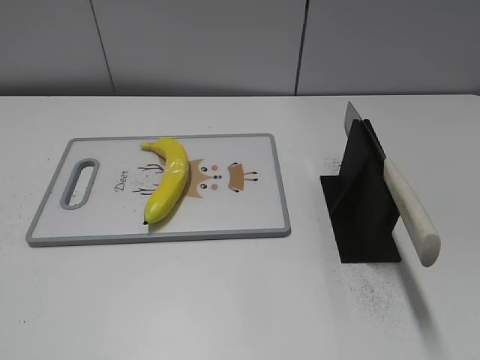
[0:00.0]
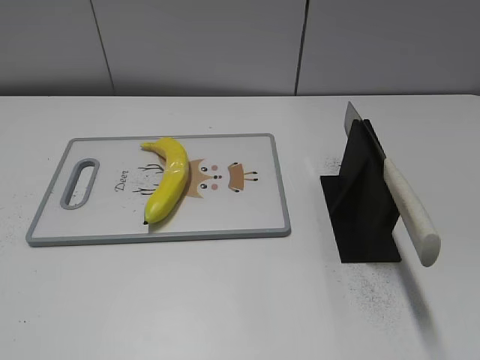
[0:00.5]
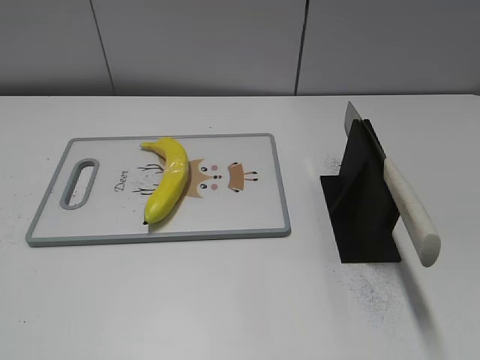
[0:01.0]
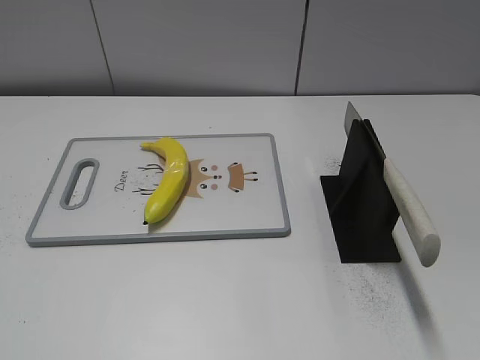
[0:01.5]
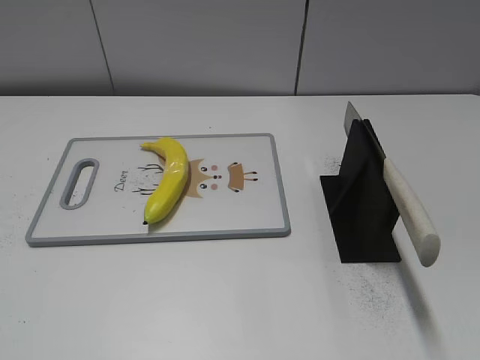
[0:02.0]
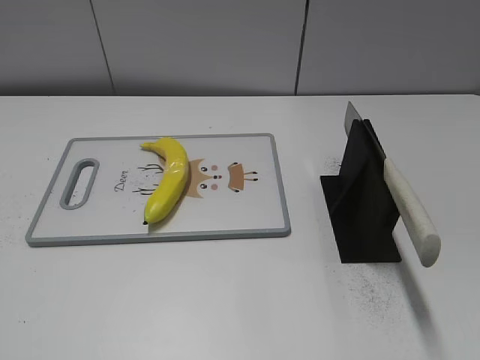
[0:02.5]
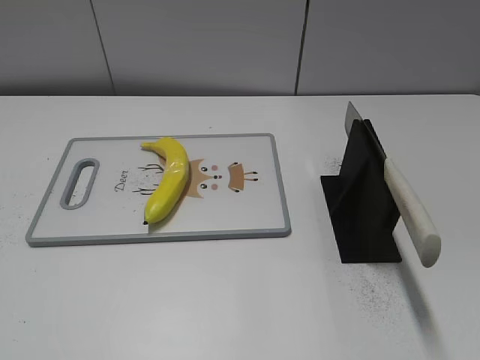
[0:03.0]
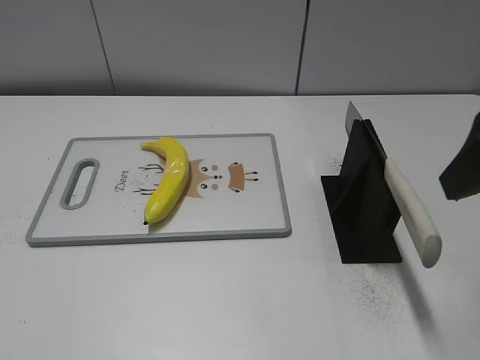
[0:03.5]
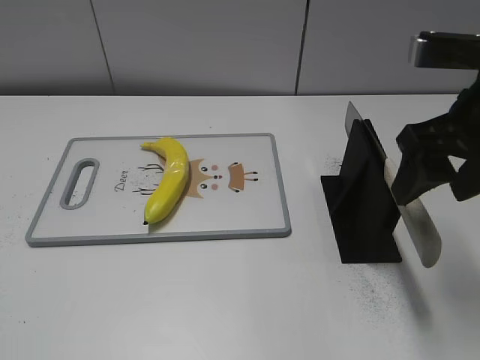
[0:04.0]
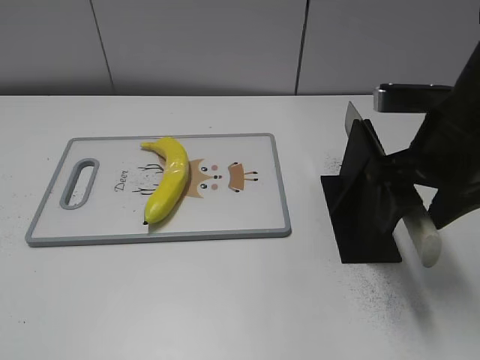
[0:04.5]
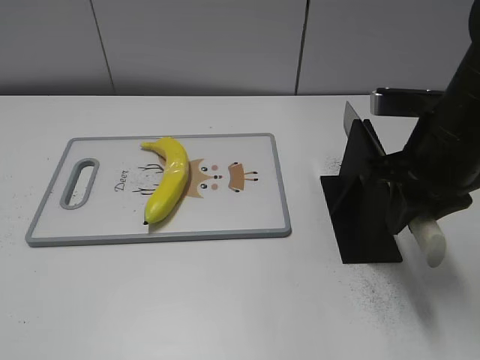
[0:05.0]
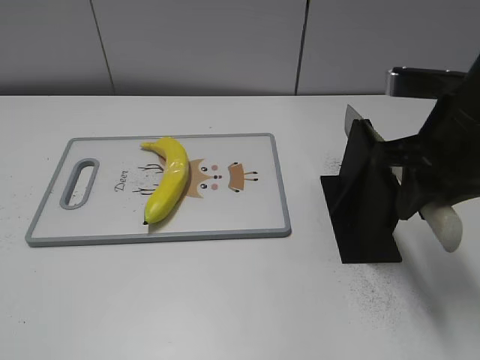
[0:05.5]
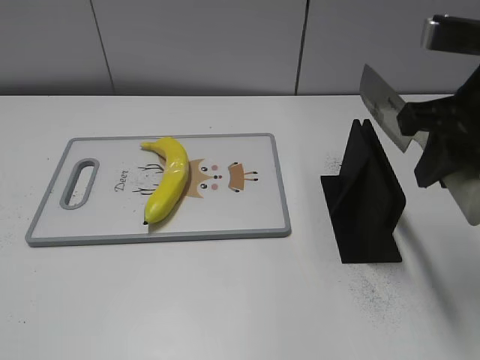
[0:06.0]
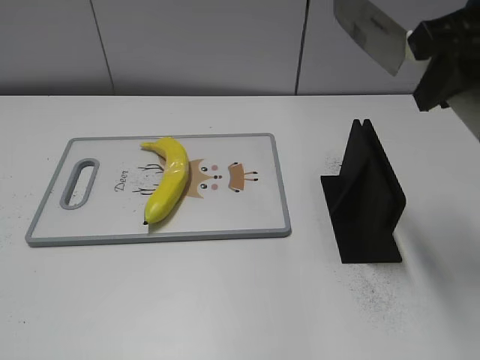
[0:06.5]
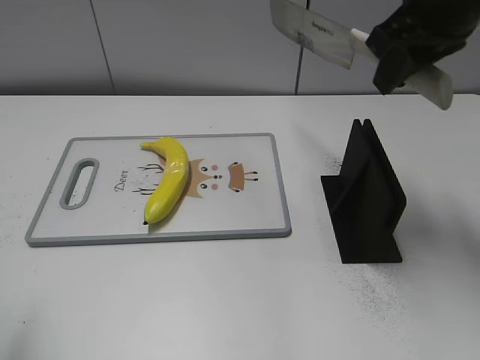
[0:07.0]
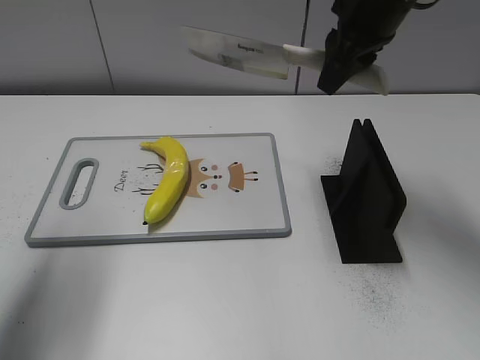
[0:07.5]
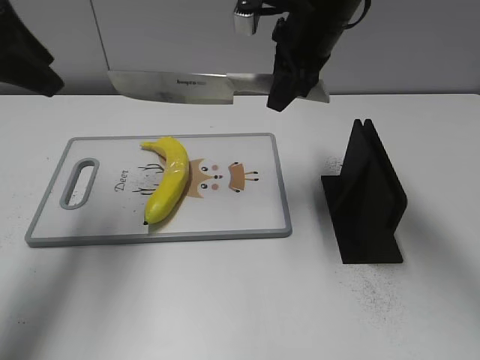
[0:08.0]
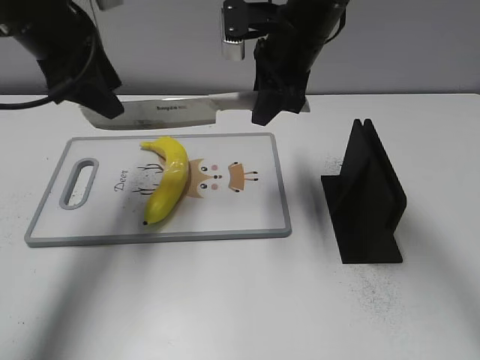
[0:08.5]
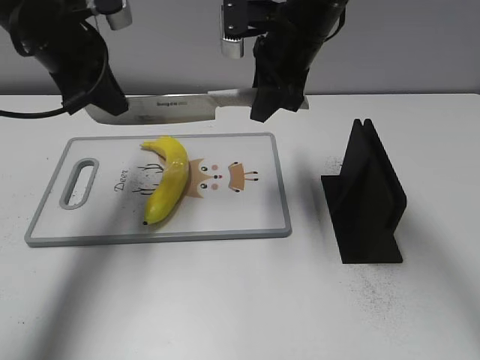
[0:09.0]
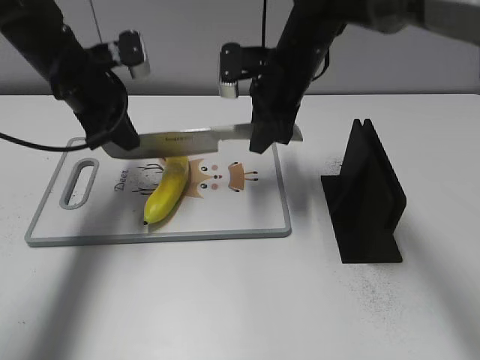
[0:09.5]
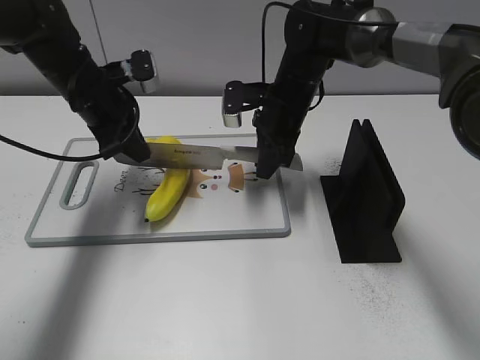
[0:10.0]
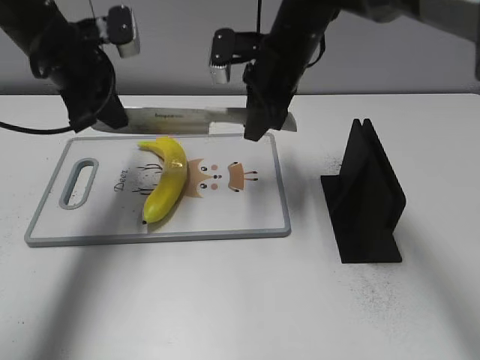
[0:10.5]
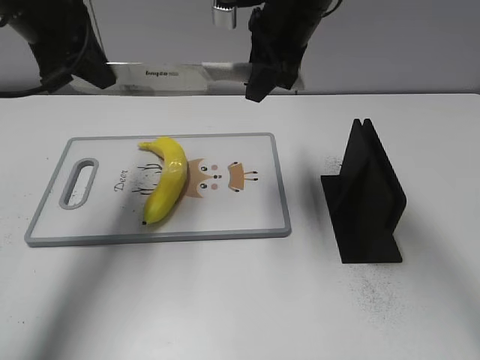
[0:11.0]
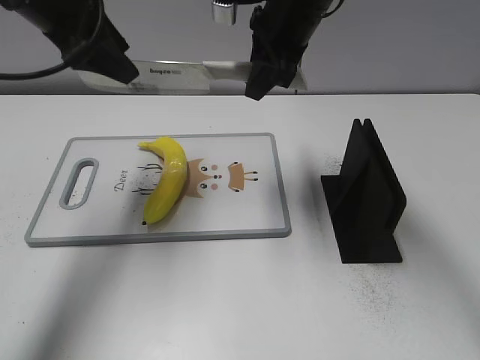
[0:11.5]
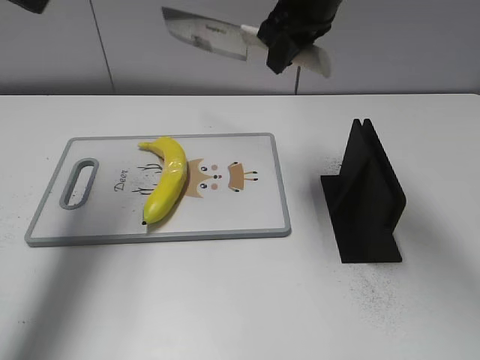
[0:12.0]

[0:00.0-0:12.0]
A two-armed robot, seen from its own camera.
Task of the whole recording: cut plastic banana.
Step, 0:00.0 to 0:06.0: Grab the knife handle with your right hand.
Step, 0:06.5 to 0:11.0: Lift the knife with your right hand.
0:02.0 to 0:04.0: The right gripper is displaced forward by some 25 cm.
0:04.0 to 0:06.0: The right gripper closes its fingers.
0:06.0 to 0:08.0: The left gripper moves forward, about 35 cm. The right gripper goes some 20 cm forward and to the left.
0:08.0 to 0:10.0: The left gripper heads downward and forward, covering about 20 cm, and closes up; the right gripper goes some 15 cm downward.
0:10.0 to 0:12.0: Both grippers move upward, about 20 cm. The left gripper opens its fingers.

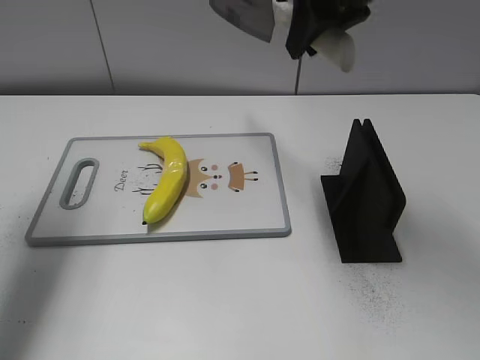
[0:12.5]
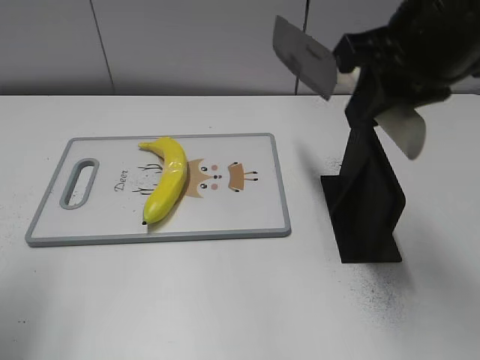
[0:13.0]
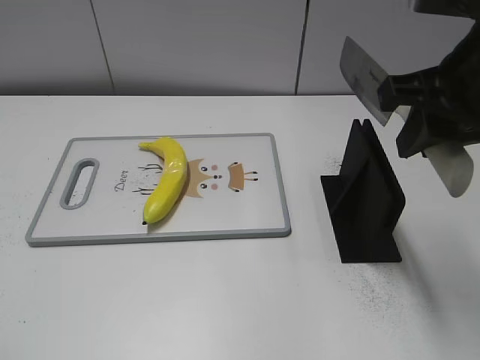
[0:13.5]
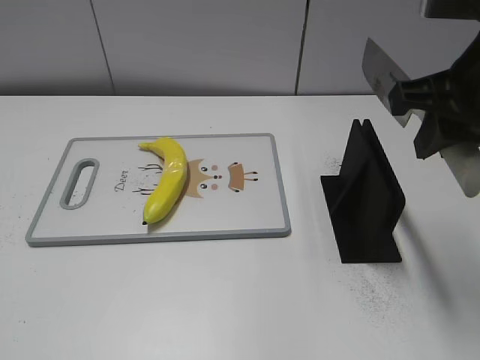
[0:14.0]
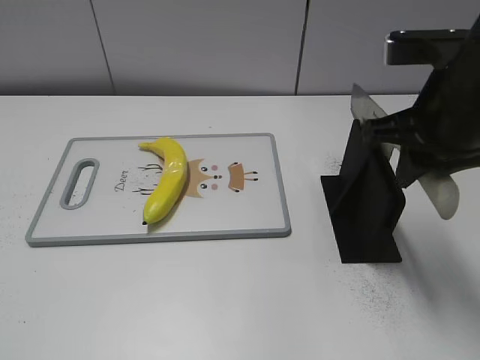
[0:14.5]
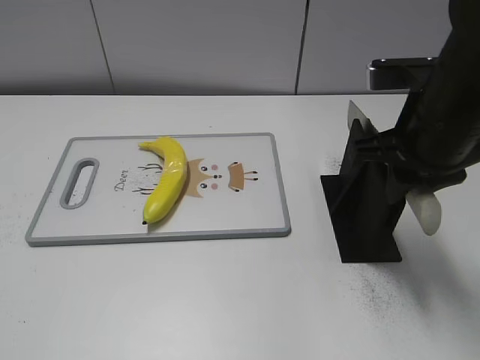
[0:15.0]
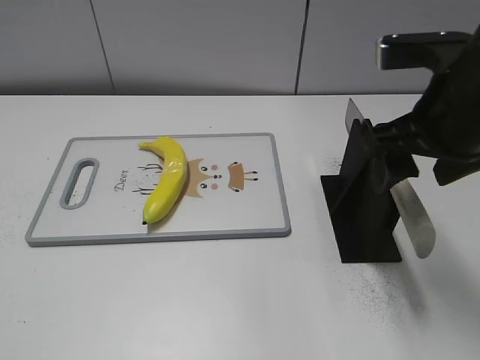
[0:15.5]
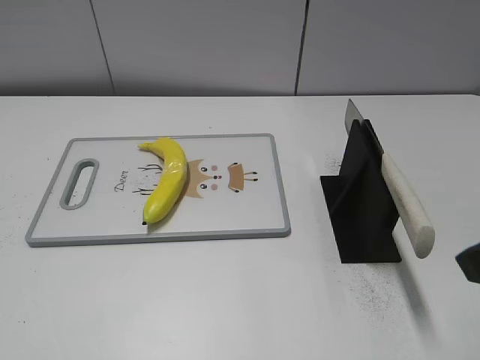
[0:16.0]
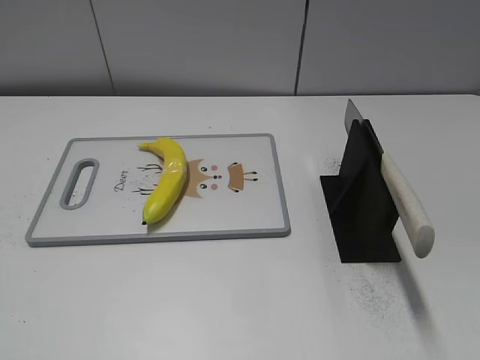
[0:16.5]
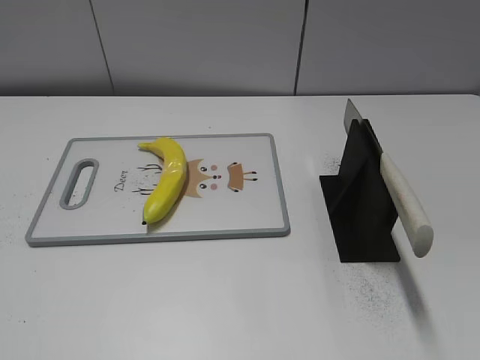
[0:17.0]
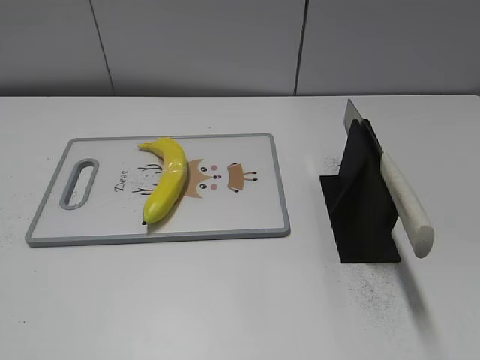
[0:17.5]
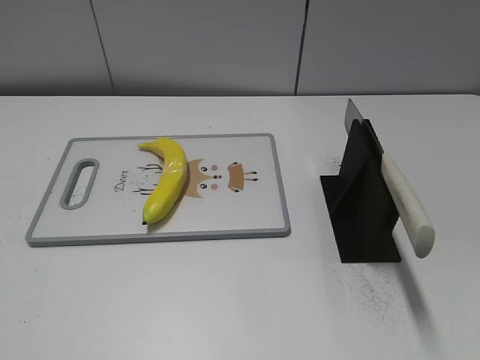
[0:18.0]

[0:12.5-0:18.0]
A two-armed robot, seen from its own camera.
Task of the whole recording: cut plastic banana.
Step, 0:12.5 to 0:13.5: Secure the blade with your left hand.
Step, 0:14.0 to 0:18.0: Place the knife on the storage rack with your right hand.
0:12.5 to 0:14.5: The right gripper moves backward, downward and to the right, roughly 15 cm. The left gripper travels backward by some 30 cm.
0:14.5 to 0:16.0: The right gripper travels backward by some 10 cm, and opens up.

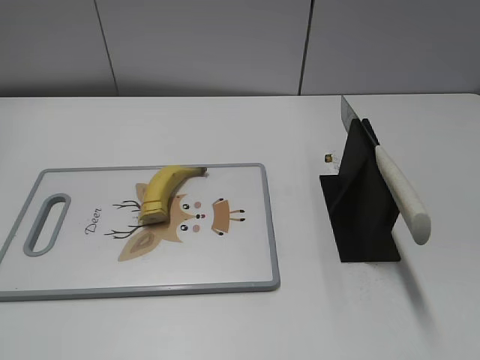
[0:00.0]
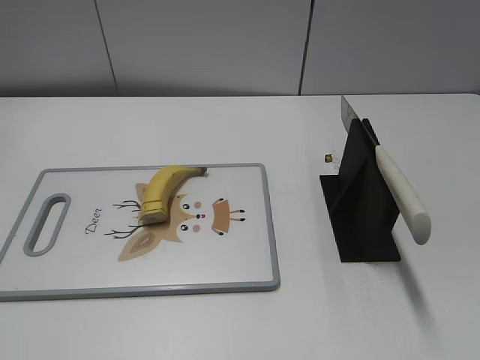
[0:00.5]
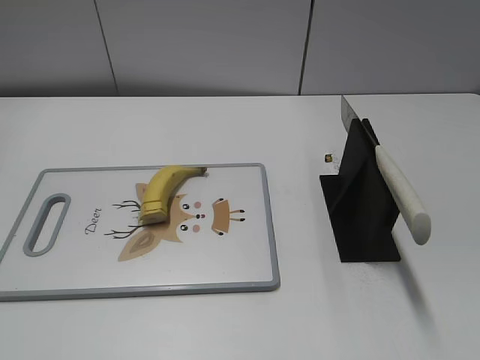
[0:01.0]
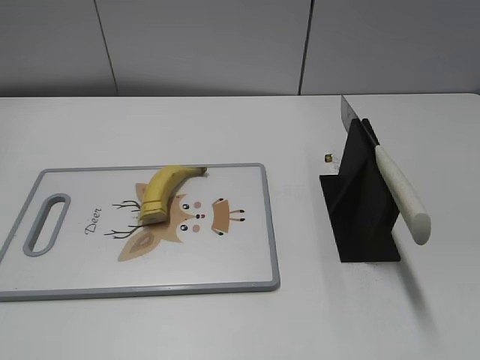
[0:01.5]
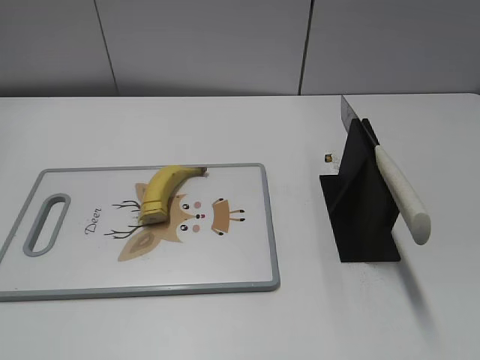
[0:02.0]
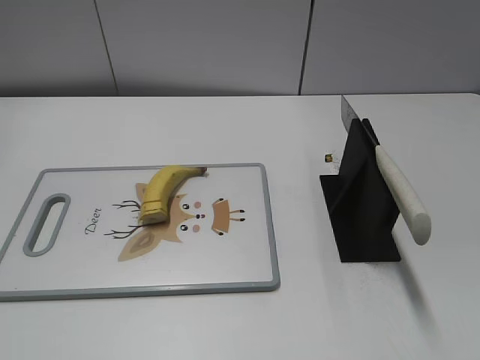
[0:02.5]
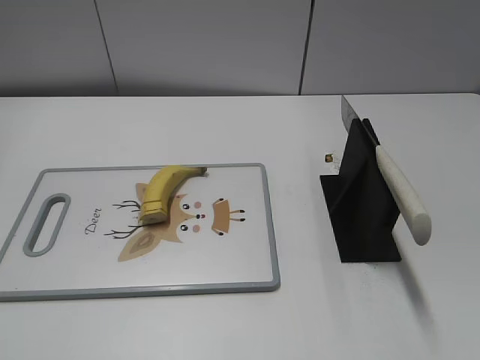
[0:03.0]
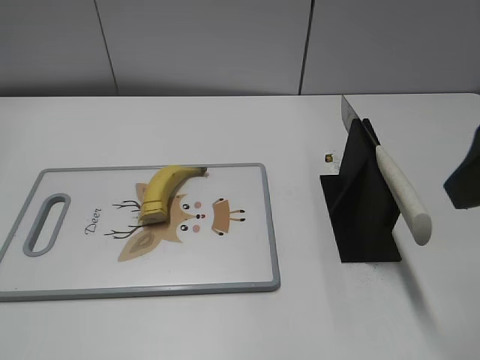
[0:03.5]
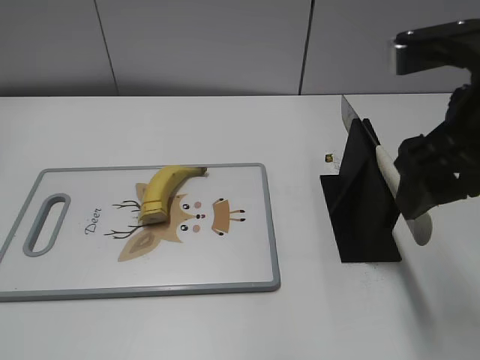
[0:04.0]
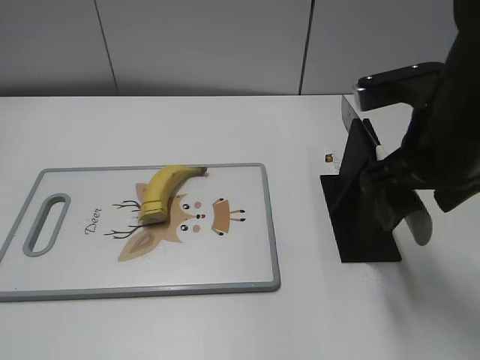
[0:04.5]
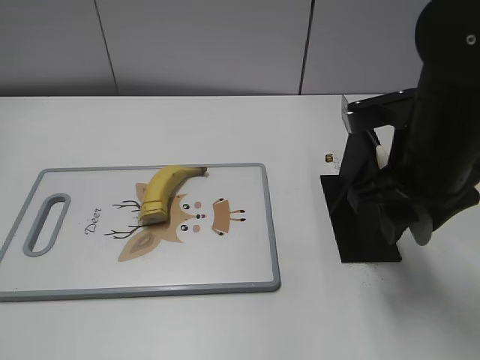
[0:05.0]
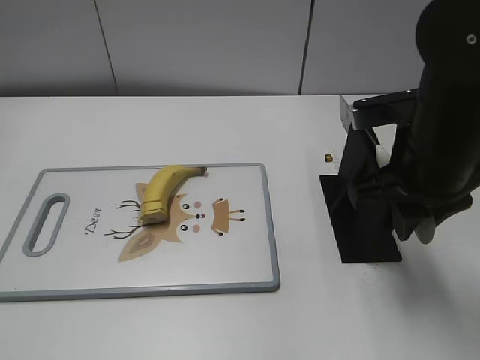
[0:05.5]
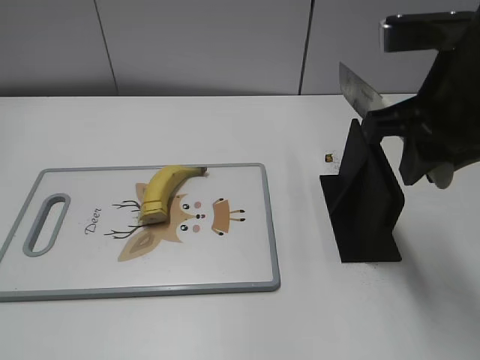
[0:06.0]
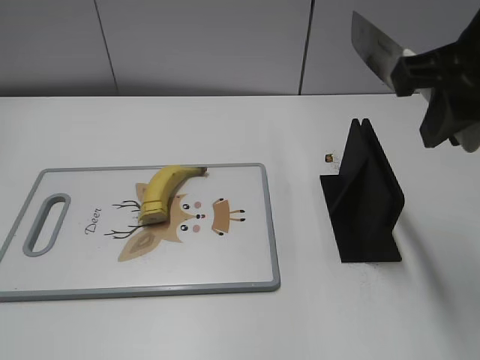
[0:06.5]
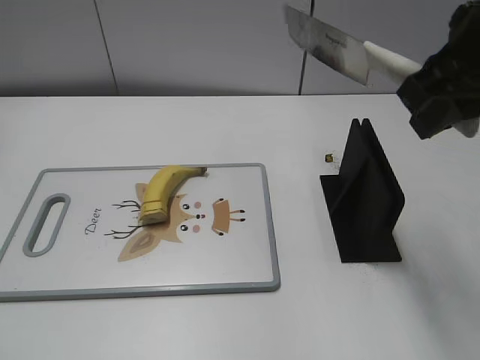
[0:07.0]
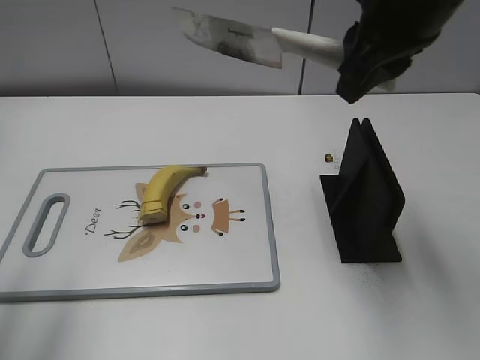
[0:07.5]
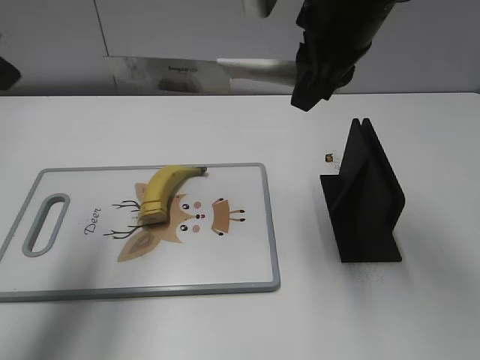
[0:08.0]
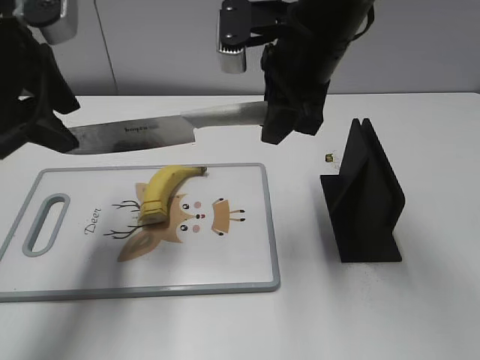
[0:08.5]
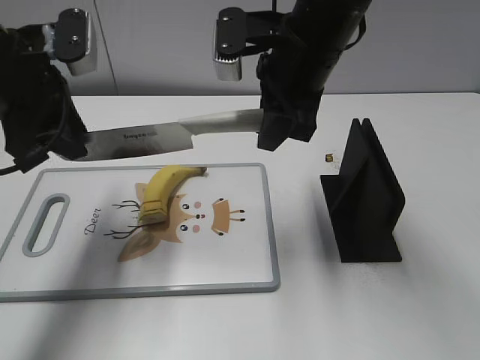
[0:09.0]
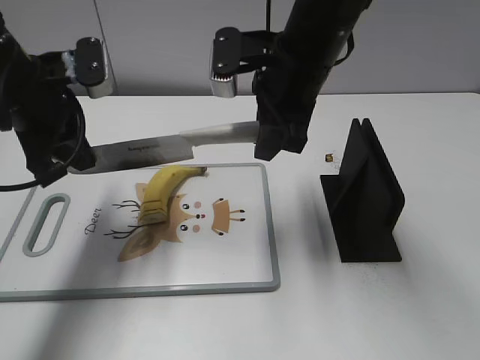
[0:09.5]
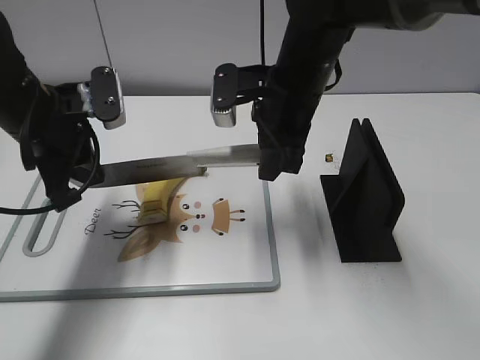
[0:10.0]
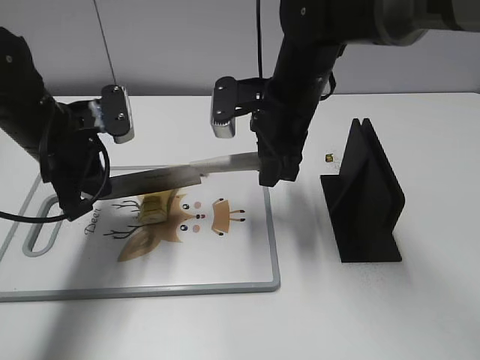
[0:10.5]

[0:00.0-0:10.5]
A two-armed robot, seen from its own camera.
Task of the whole recording: cut banana.
Step, 0:00.0 to 0:06.5: Grab the knife handle with your right hand.
0:02.0 to 0:04.0: The right gripper moves forward and to the left, some 25 cm.
0:04.0 to 0:06.5: The right gripper goes downward and returns, roughly 10 cm each way, and closes.
0:06.5 to 0:08.5: The right gripper travels forward, to the left and downward by roughly 15 cm. Meanwhile the left gripper shifts some 30 cm forward.
0:08.5 to 0:10.5: The two grippers go some 10 cm downward. The left gripper closes.
